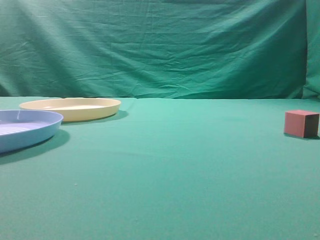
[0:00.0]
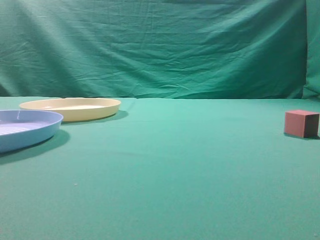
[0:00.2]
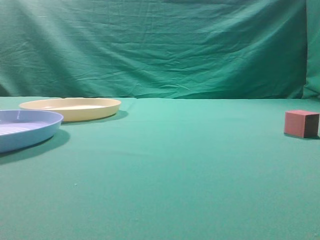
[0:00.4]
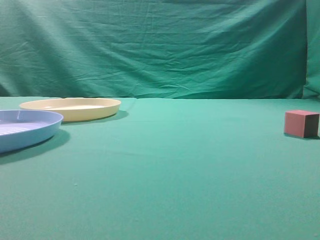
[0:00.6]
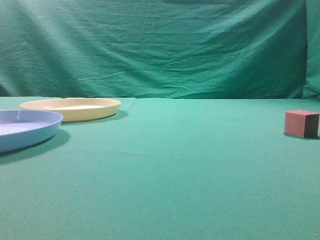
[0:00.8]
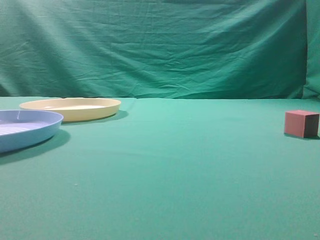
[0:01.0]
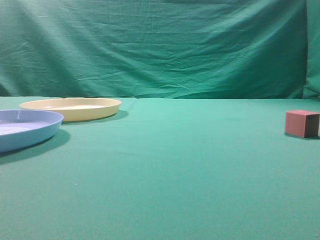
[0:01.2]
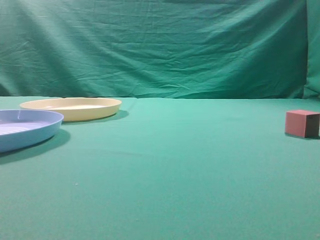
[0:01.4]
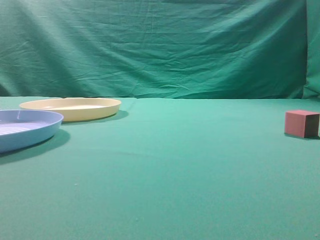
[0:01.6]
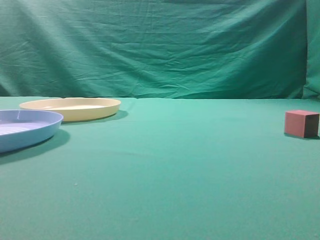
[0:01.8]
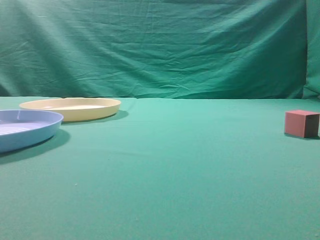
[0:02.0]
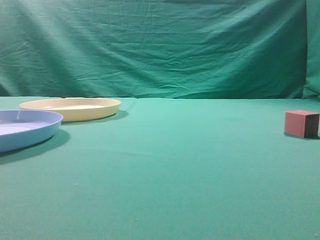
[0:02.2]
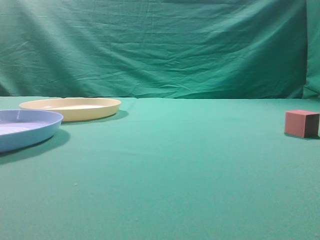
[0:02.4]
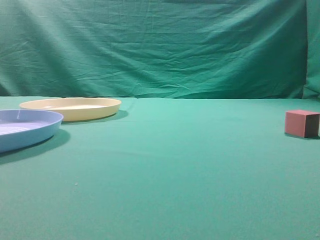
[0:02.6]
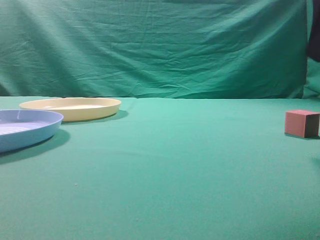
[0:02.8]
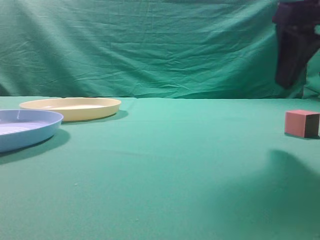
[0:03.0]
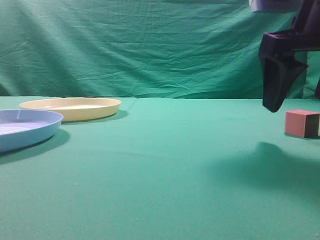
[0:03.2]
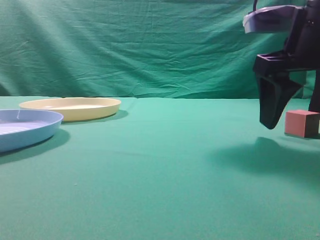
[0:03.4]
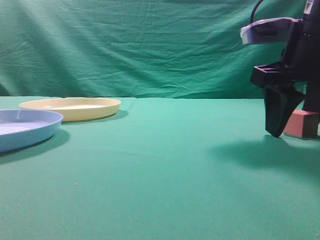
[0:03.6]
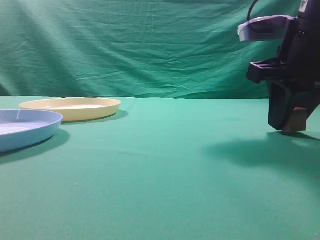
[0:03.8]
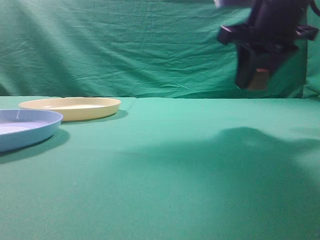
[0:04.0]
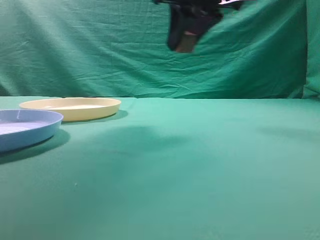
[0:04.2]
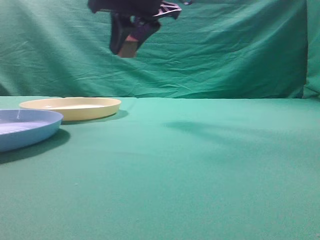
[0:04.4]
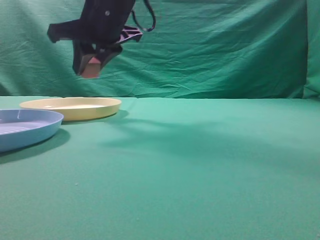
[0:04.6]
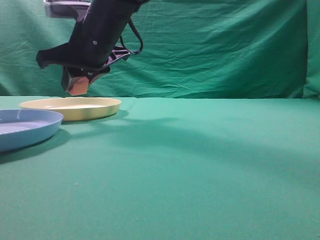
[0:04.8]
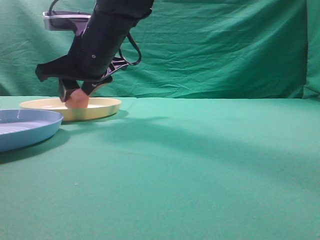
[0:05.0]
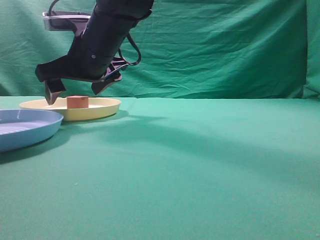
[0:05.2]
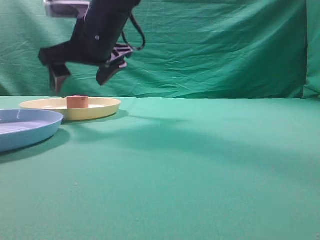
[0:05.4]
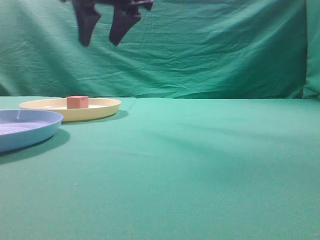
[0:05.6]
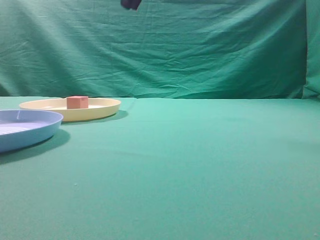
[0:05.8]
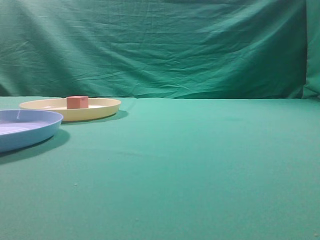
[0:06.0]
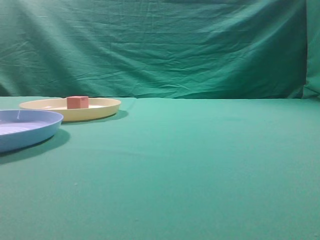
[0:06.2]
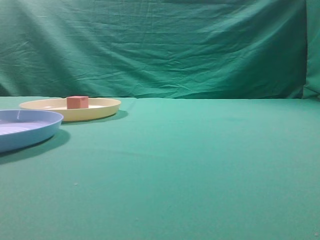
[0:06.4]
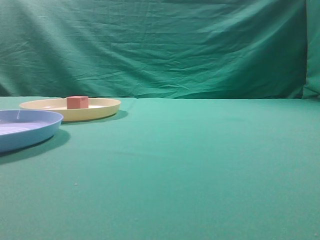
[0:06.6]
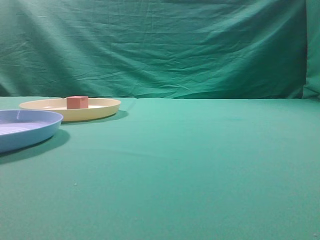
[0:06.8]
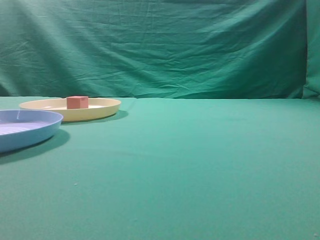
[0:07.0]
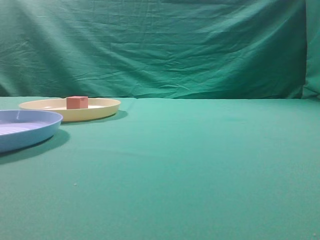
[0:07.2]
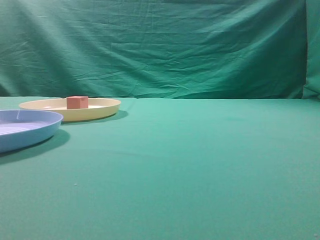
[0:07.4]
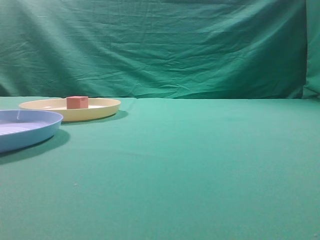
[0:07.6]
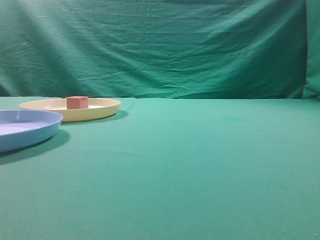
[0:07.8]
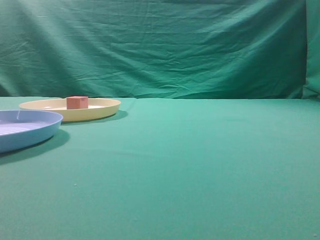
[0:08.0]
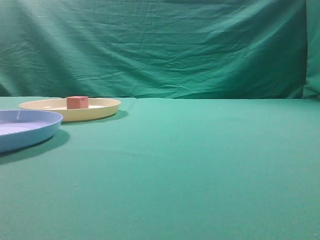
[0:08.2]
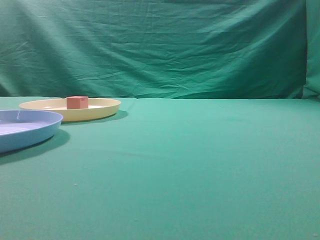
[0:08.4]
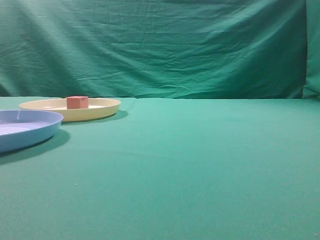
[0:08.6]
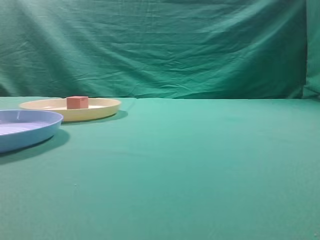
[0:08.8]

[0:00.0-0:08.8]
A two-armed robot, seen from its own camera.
Task of the whole recording: pick up the cube block from the table and put it on the plate.
Step, 0:00.0 to 0:04.0: Grasp the small cube on the table.
Step, 0:04.2 to 0:05.4: Place it into the yellow plate.
0:01.4 to 0:03.0: The right gripper is displaced forward and to the left by approximately 25 cm, and opens.
0:03.0 to 0:04.4: The right gripper moves to the left and forward, about 25 cm, and closes its fingers.
0:04.4 to 0:05.8: The right gripper shifts roughly 10 cm upward, and opens, then closes once more.
